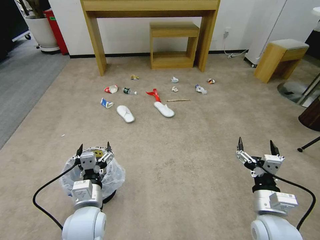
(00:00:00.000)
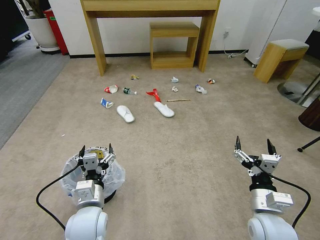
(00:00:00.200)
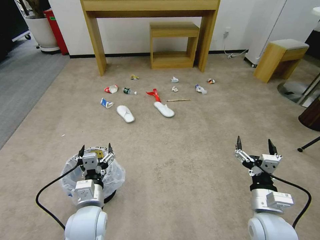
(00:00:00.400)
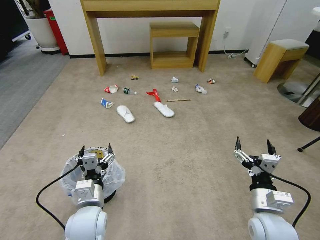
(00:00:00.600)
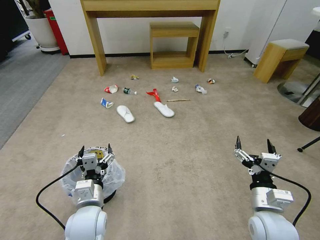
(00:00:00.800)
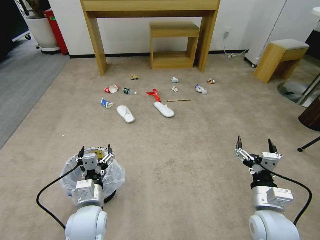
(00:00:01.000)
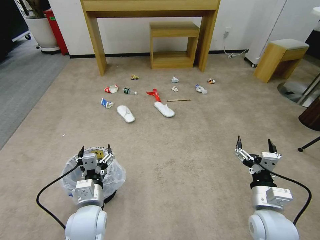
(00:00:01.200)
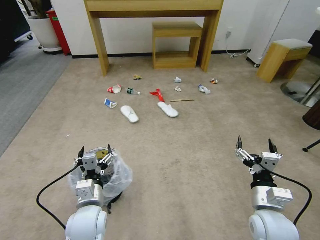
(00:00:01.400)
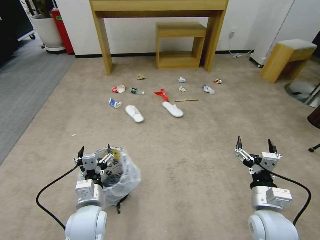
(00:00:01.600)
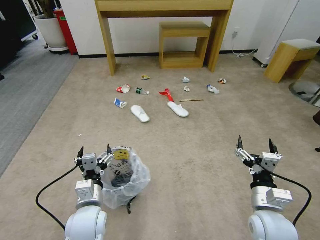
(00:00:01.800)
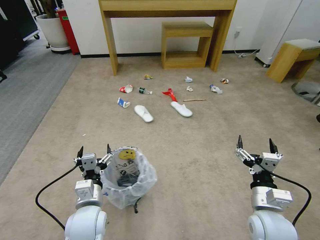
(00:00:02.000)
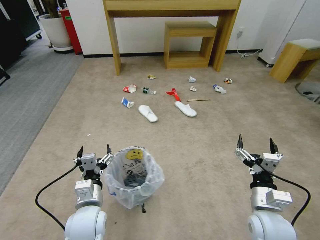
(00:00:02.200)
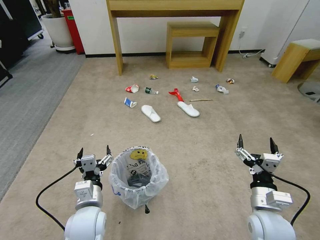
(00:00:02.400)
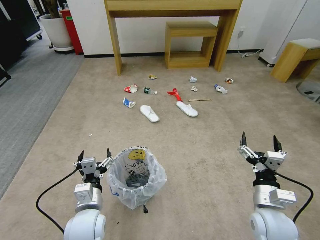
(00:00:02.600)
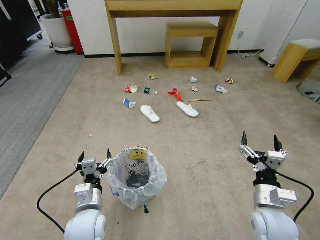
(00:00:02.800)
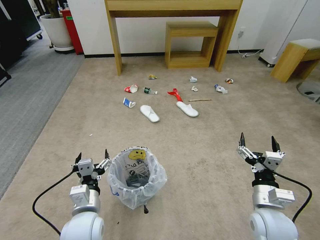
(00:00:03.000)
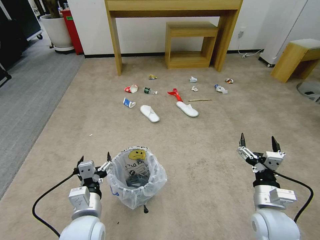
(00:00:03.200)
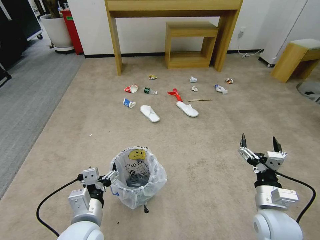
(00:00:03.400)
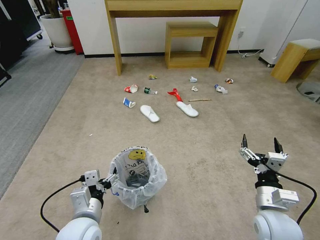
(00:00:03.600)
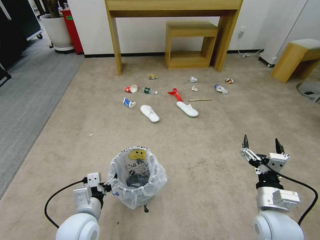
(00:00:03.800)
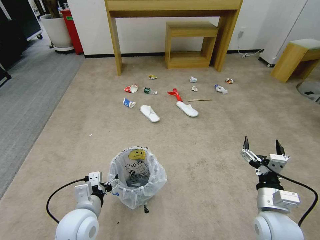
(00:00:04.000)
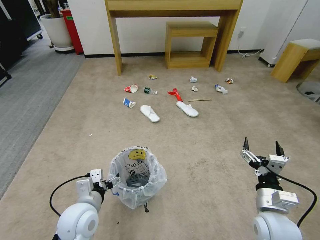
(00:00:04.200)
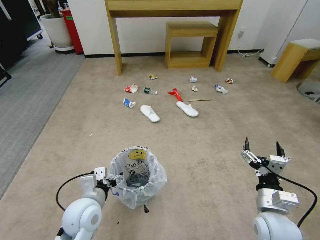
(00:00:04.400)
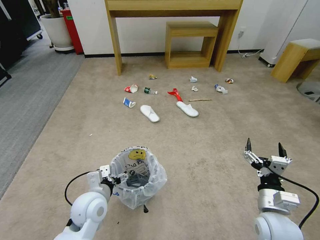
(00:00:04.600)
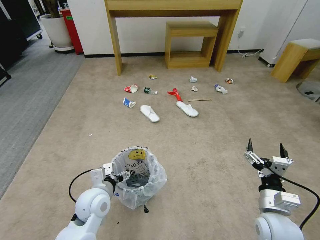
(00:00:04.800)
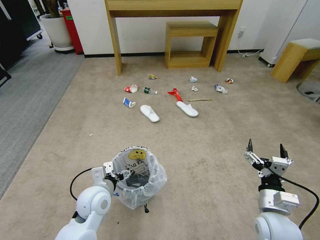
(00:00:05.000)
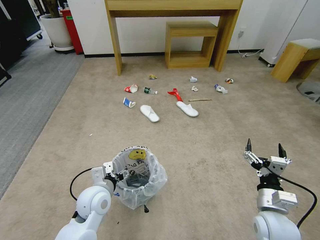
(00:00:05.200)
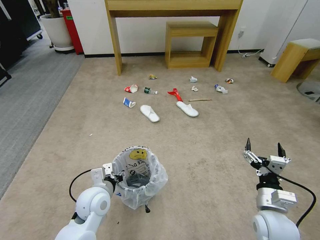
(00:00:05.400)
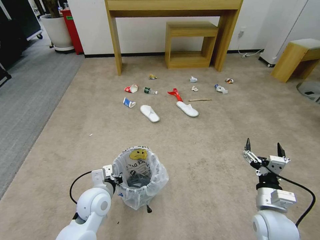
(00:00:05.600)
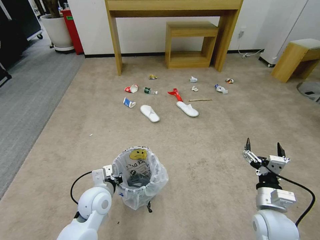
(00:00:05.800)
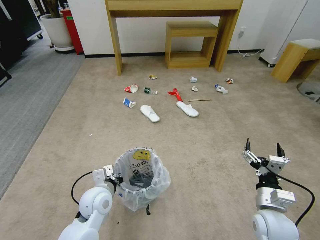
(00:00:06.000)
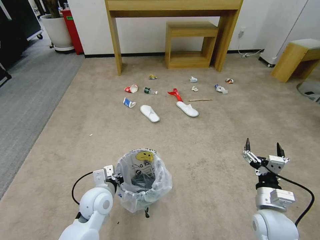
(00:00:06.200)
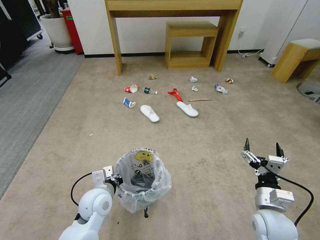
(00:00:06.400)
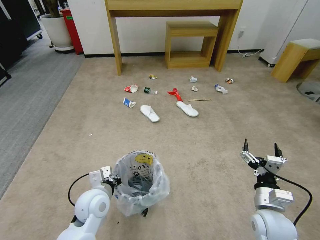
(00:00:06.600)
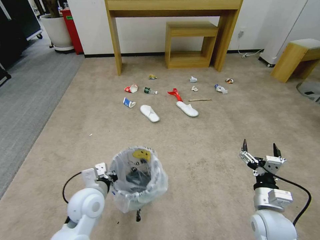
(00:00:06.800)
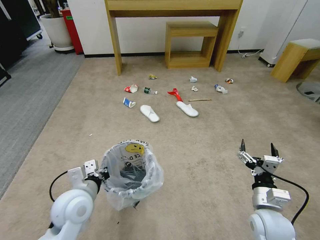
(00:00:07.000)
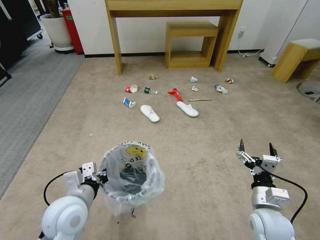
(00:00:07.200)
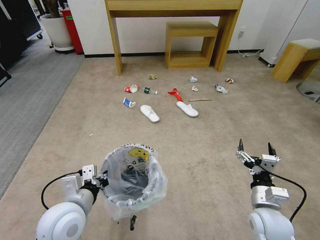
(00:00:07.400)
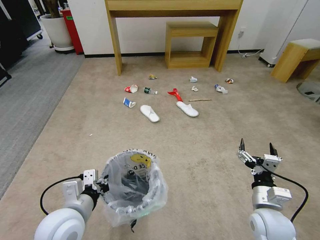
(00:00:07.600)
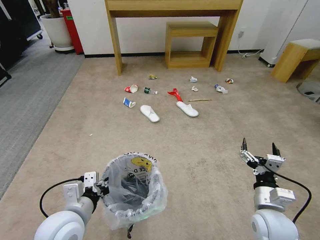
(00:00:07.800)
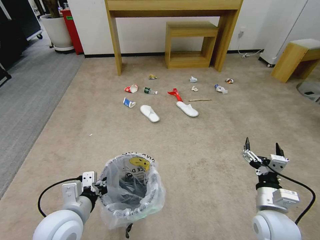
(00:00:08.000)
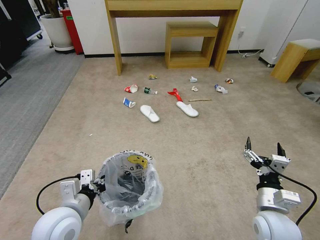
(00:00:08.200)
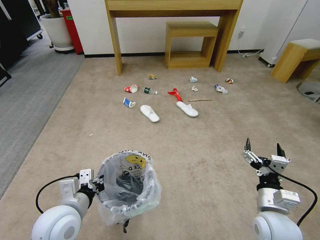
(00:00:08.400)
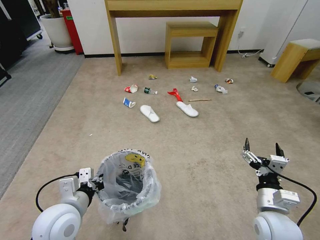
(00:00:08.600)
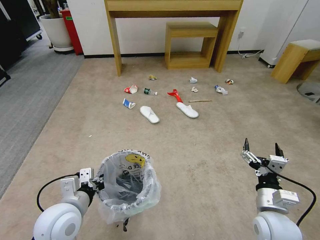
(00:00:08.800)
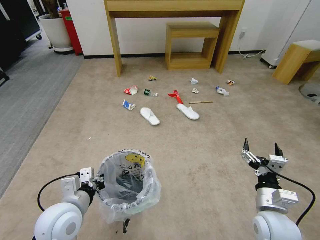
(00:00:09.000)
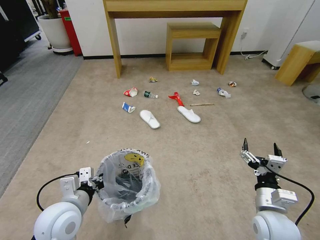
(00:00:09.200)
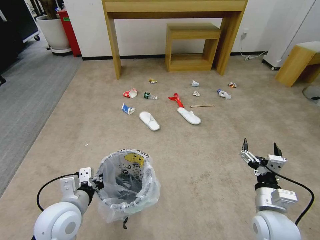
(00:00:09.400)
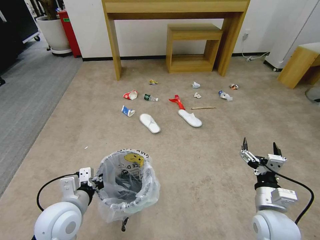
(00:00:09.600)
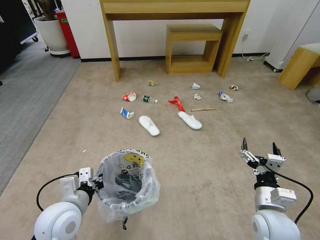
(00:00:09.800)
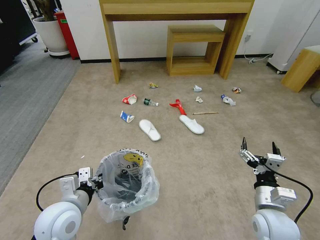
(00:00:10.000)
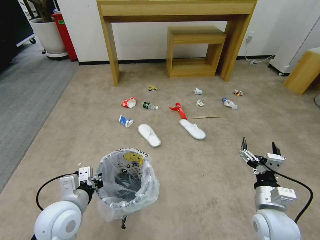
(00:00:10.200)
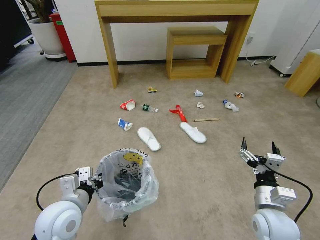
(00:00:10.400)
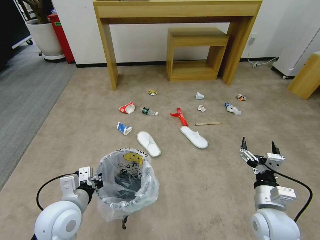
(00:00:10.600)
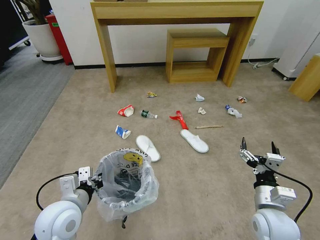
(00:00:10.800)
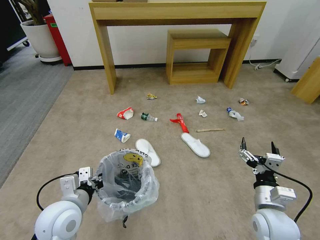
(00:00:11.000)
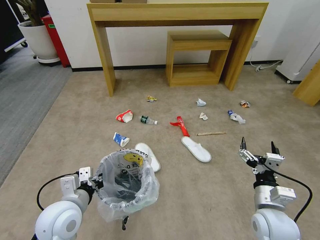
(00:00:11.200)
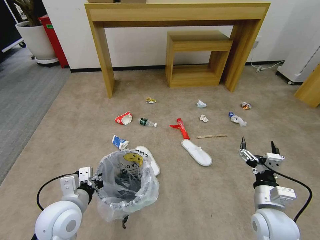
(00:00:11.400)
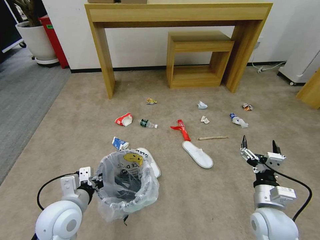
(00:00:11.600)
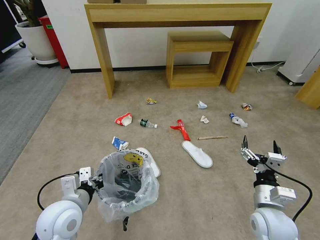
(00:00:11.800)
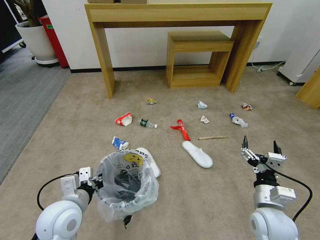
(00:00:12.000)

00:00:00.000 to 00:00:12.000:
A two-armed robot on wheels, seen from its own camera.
Task of the whole recording: Pick up the trash bin and place the garbage on the floor into it.
00:00:04.400 to 00:00:06.000: The left gripper changes place by about 5 cm, and closes its fingers.
00:00:06.000 to 00:00:07.600: The left gripper shifts approximately 15 cm backward and upward.
00:00:07.600 to 00:00:09.000: There are only small adjustments of the grippers.

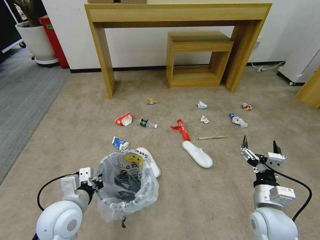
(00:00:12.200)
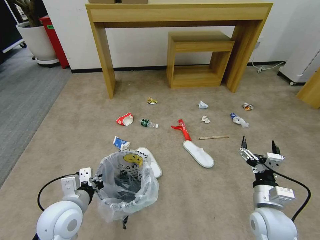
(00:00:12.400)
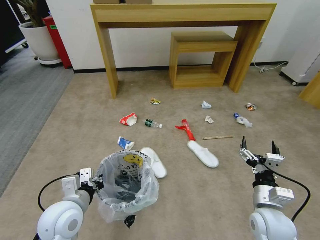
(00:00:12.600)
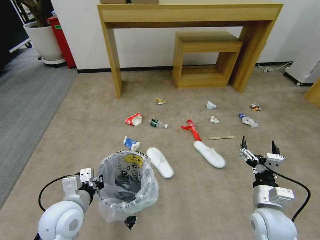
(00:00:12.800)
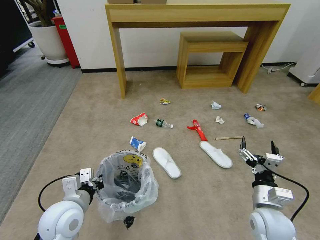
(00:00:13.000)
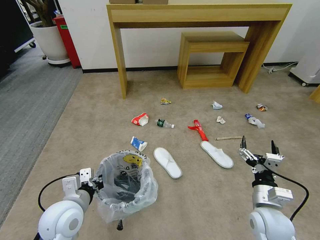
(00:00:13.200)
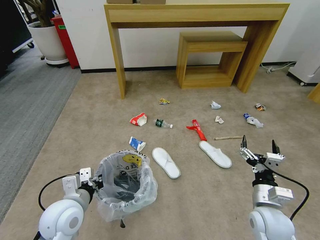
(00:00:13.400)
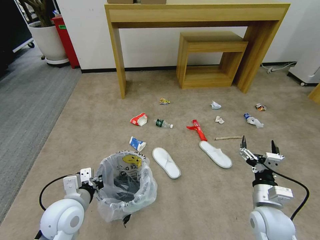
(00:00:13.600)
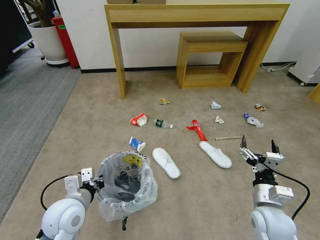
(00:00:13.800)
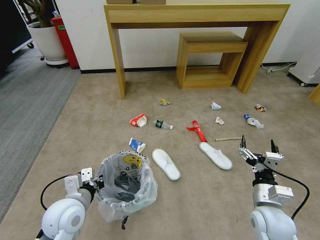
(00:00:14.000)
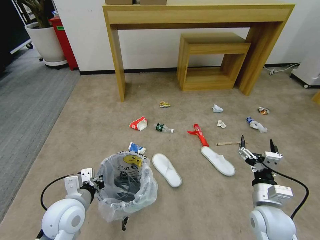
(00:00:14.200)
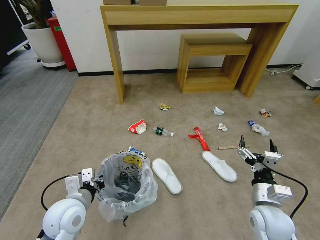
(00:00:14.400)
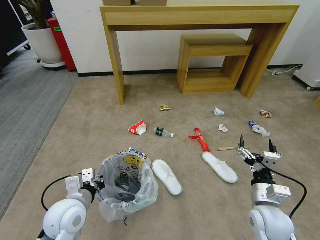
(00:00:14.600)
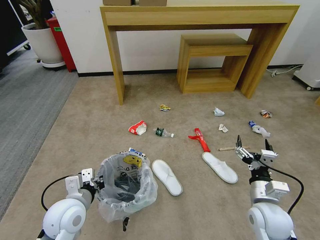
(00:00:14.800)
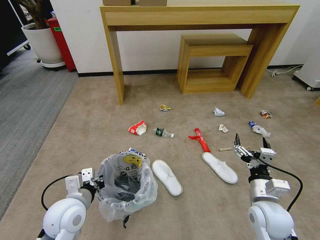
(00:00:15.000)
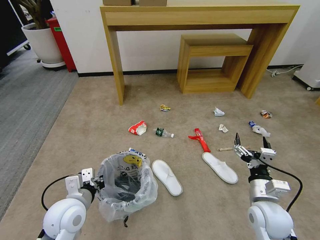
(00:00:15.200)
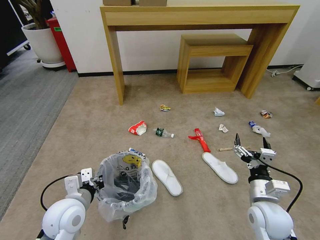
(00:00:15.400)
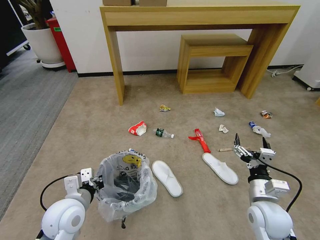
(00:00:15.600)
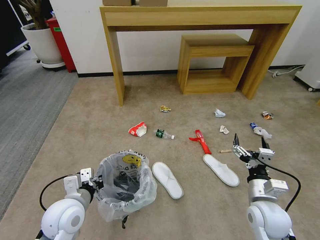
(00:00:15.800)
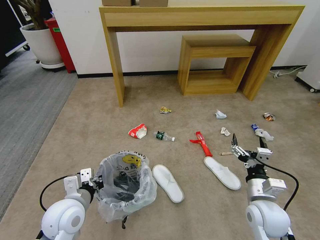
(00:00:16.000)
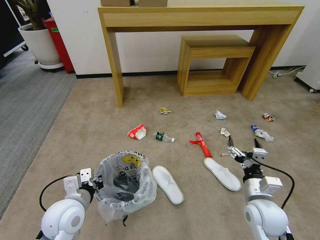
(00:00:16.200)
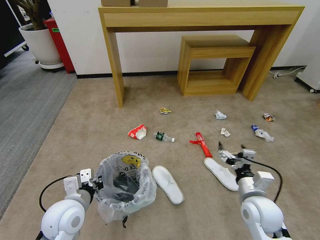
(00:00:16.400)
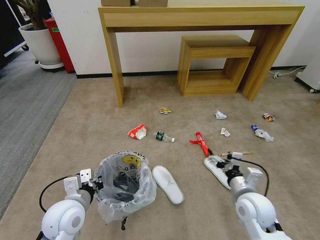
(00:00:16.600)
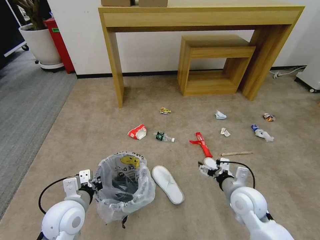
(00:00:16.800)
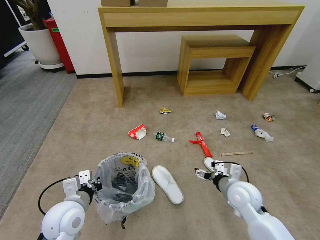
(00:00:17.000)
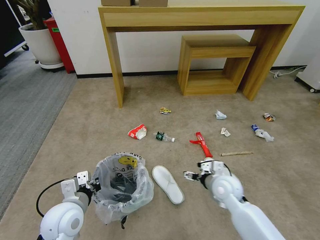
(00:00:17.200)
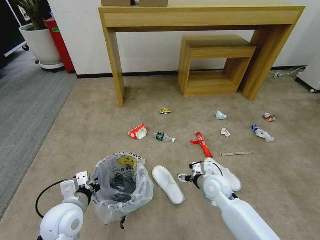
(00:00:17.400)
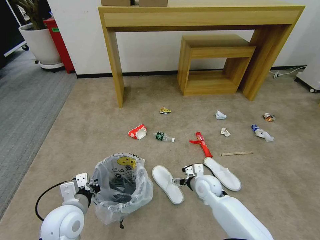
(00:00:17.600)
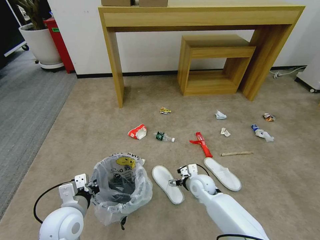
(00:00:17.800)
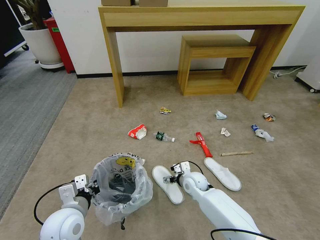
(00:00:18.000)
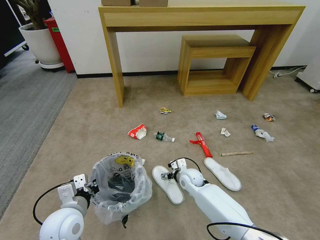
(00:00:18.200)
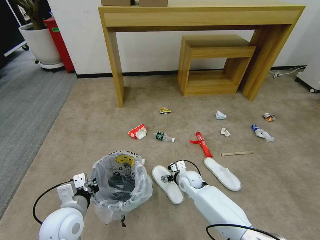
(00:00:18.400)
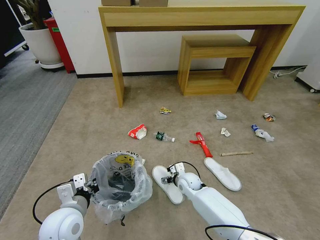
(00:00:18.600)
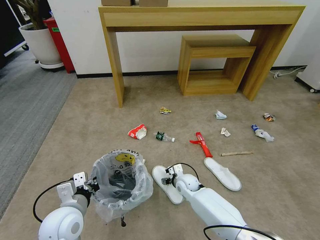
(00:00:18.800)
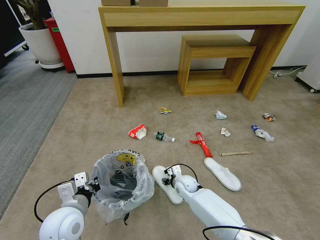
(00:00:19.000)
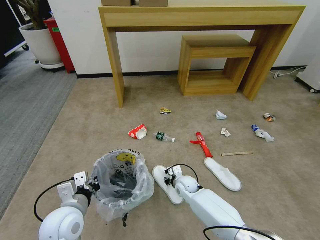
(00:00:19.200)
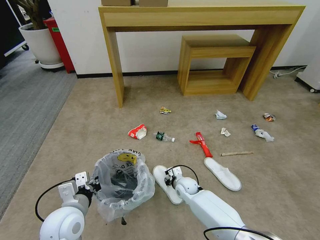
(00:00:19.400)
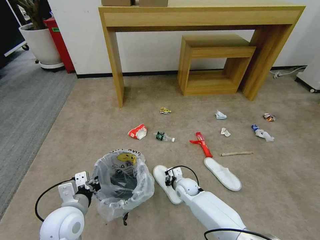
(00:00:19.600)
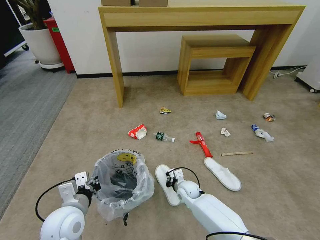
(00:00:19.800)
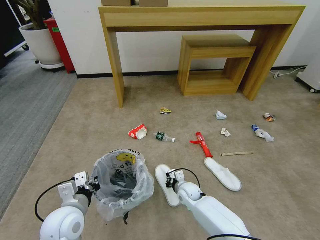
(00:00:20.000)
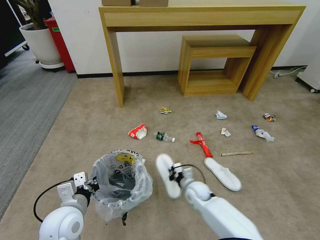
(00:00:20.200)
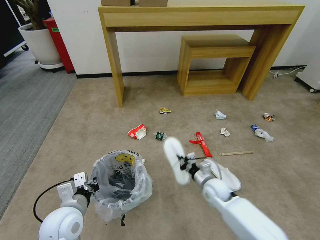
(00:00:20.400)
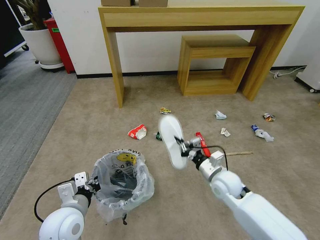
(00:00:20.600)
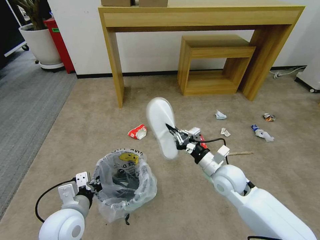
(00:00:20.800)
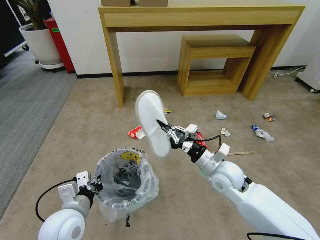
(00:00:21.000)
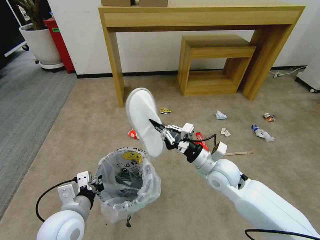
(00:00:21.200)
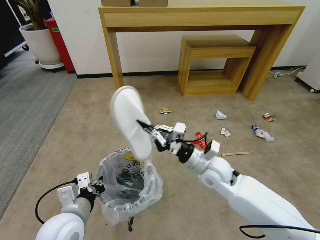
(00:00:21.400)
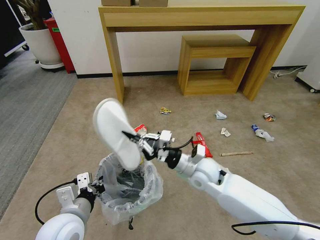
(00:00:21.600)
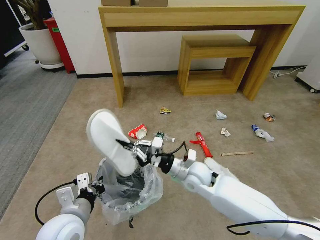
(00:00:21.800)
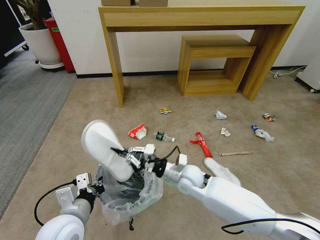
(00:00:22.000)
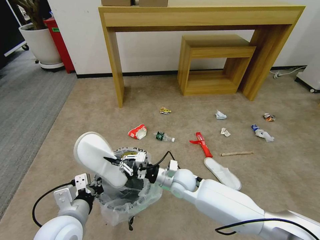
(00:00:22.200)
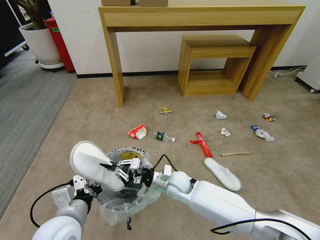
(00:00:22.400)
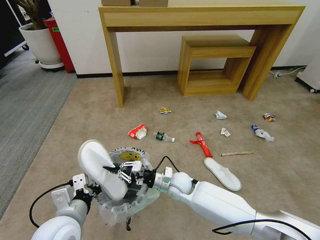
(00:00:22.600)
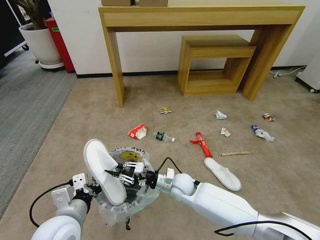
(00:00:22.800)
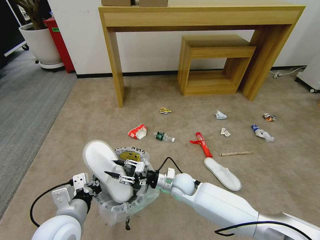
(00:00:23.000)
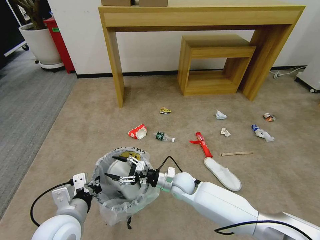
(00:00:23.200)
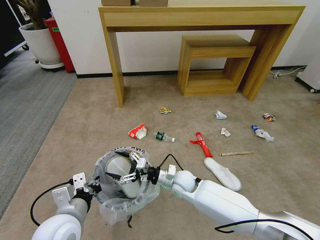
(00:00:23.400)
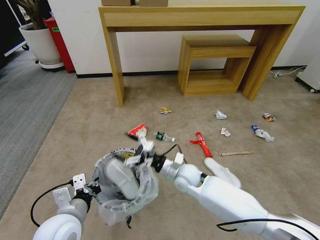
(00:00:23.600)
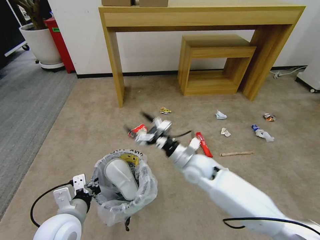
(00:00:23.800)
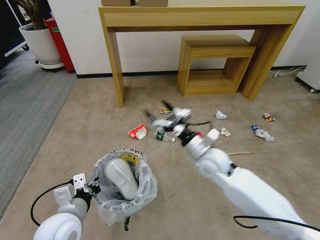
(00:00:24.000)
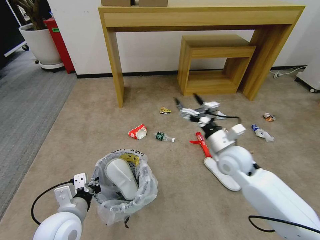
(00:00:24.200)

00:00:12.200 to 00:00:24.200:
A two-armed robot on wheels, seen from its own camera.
Task of the whole recording: Pick up the trash bin and place the garbage on the floor into it.
00:00:13.800 to 00:00:15.200: There are only small adjustments of the grippers.
00:00:16.600 to 00:00:18.200: The right gripper moves forward, to the left and downward, roughly 25 cm.
00:00:18.200 to 00:00:19.800: The right gripper travels downward by approximately 5 cm, and closes up.
00:00:19.800 to 00:00:21.200: The right gripper goes some 25 cm upward.
00:00:21.200 to 00:00:22.600: The right gripper travels downward and to the left by about 15 cm.
00:00:22.600 to 00:00:24.200: The right gripper is displaced to the right and upward by some 20 cm, and opens up.
